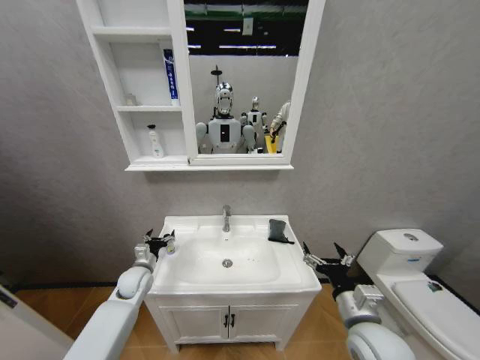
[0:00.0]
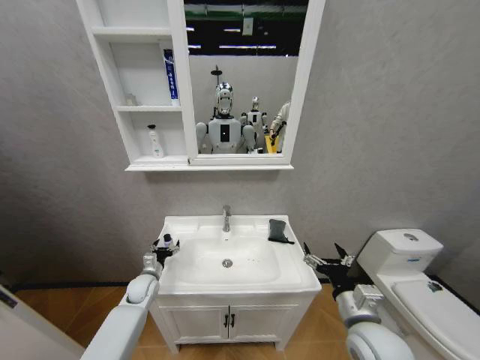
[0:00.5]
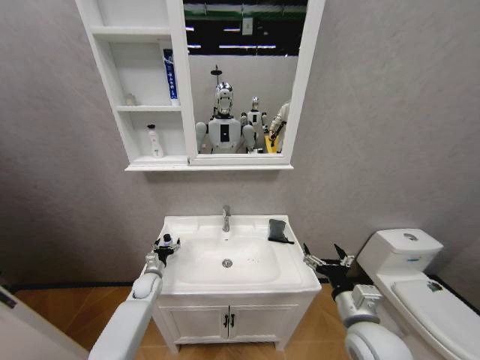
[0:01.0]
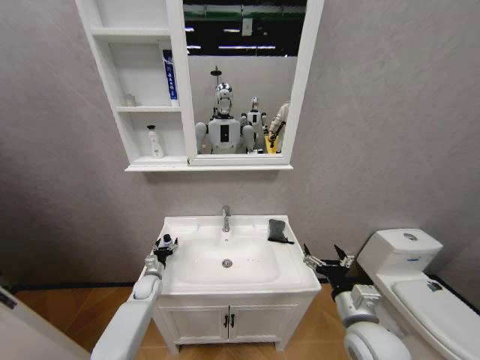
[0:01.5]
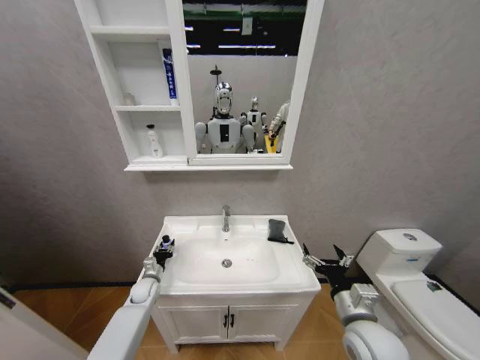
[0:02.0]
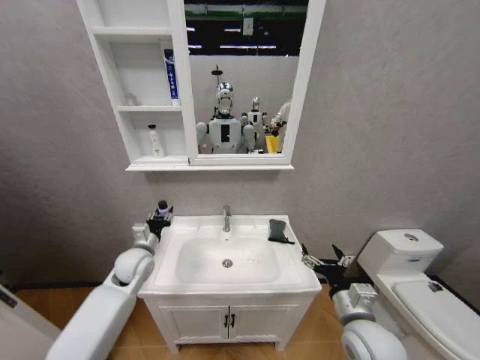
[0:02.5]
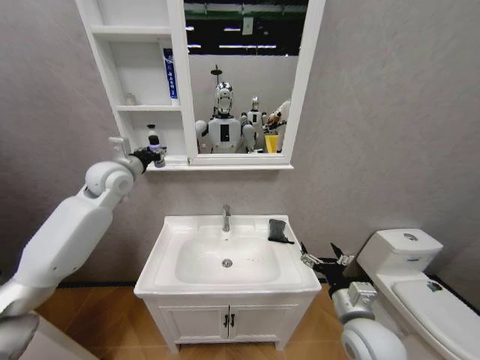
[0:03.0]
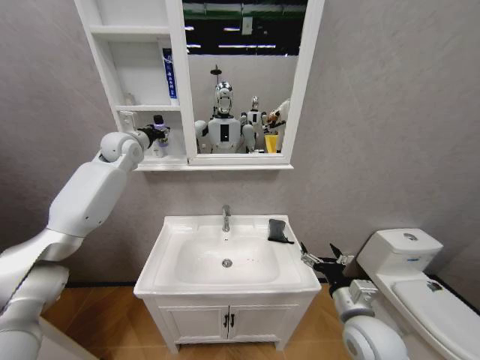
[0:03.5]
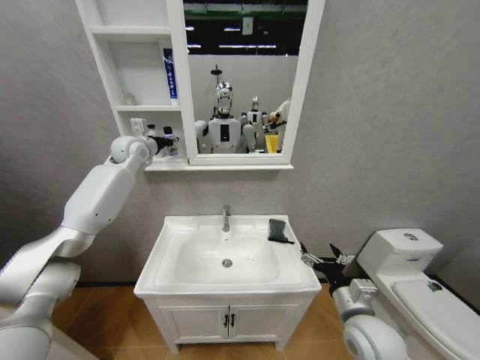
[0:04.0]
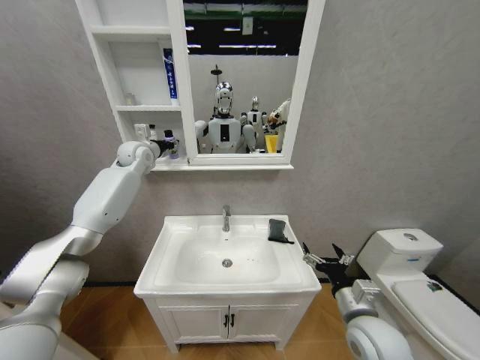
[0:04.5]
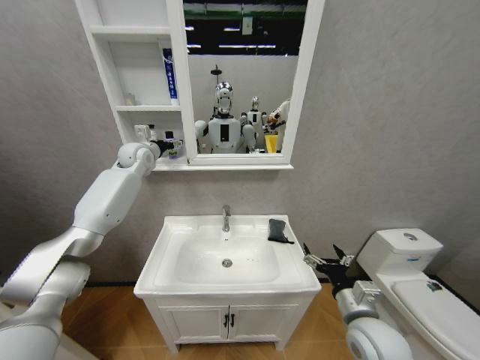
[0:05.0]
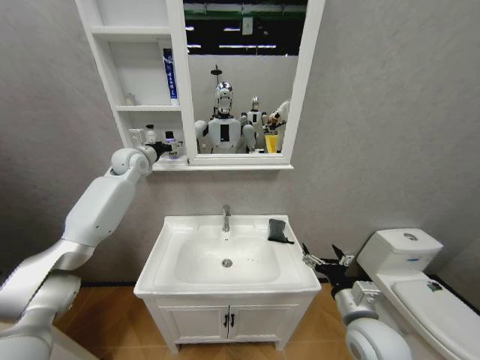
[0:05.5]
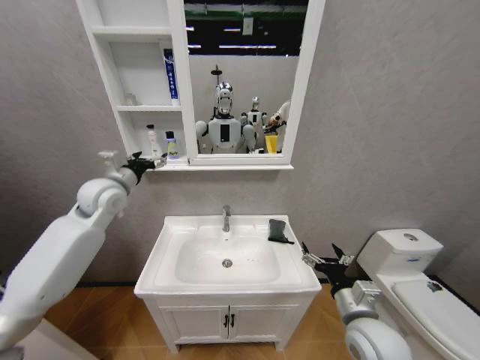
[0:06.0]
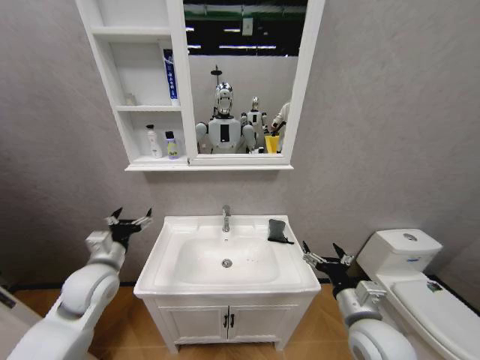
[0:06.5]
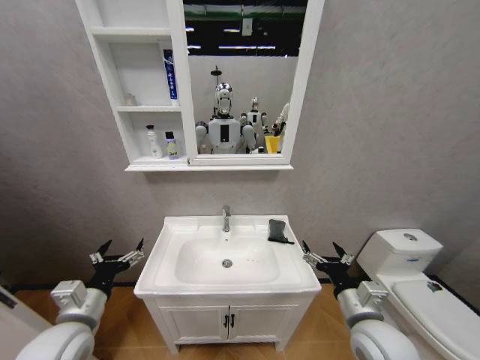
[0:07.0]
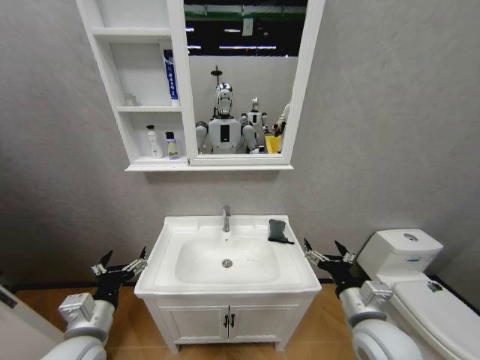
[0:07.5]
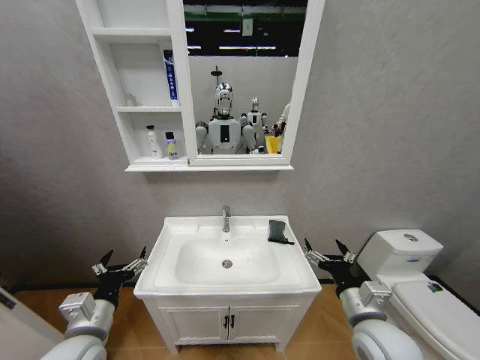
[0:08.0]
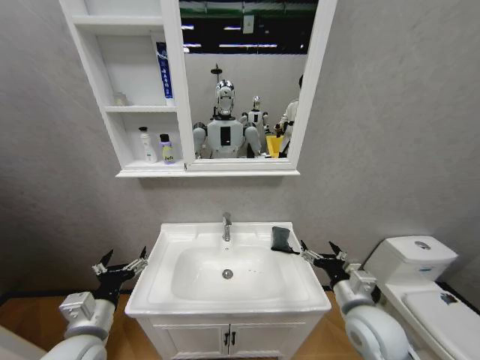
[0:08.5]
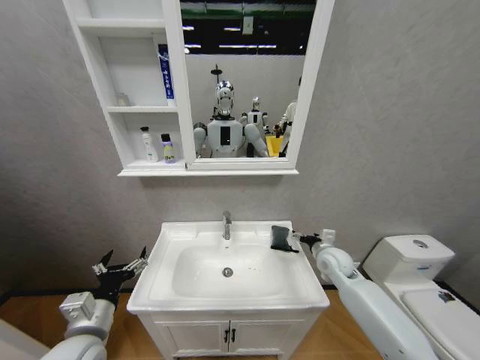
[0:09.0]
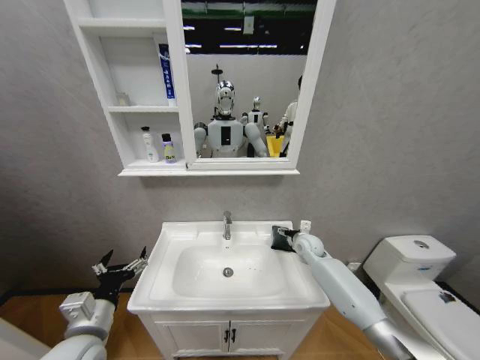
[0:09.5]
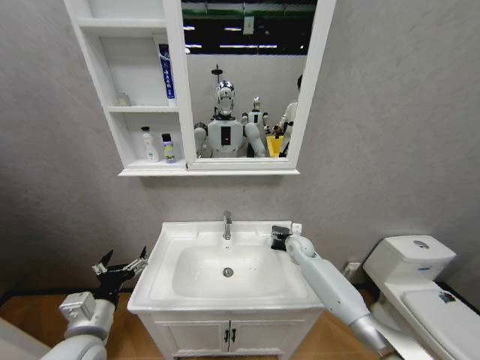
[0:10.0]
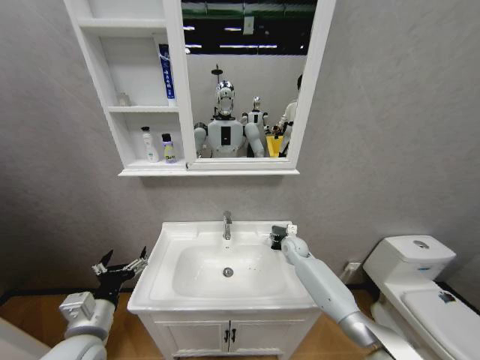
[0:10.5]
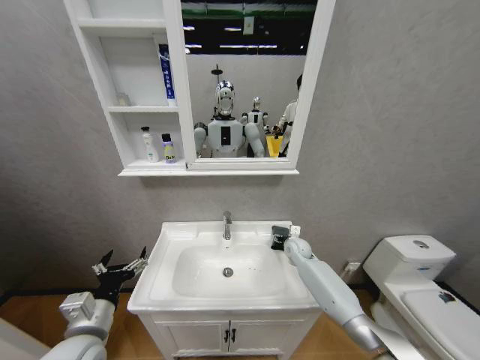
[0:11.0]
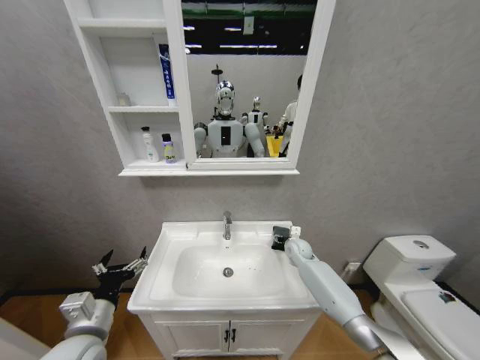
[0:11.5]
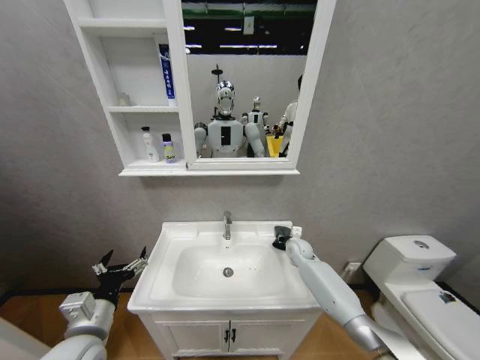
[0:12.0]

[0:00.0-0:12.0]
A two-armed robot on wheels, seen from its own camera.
Task of the whole recording: Move facial cleanser and shampoo from washbasin to cabinet, then wipe washbasin with towel.
0.0 to 2.0 s: The left gripper travels downward by roughly 10 cm, and closes.
2.0 to 4.0 s: The left gripper heads upward, covering about 50 cm.
4.0 to 6.0 s: The left gripper travels backward and downward by about 15 cm, and opens.
6.0 to 8.0 s: The left gripper heads backward and downward, covering about 35 cm.
8.0 to 10.0 s: The right gripper travels forward by roughly 30 cm.
10.0 to 12.0 s: The right gripper closes its fingers.

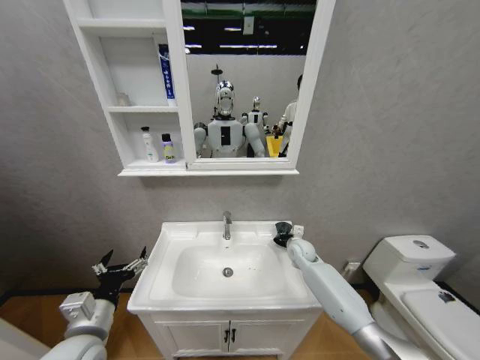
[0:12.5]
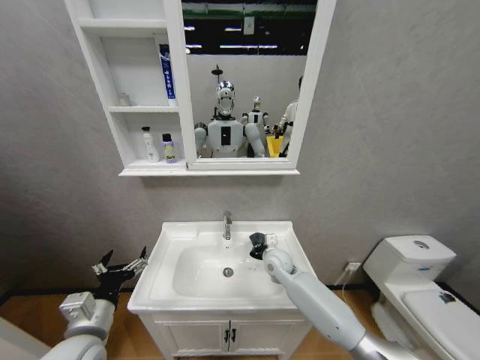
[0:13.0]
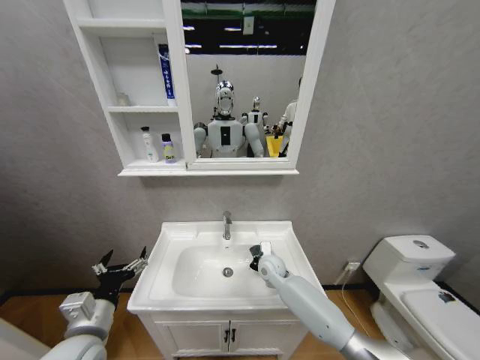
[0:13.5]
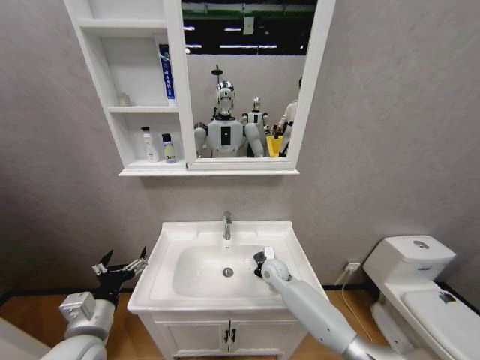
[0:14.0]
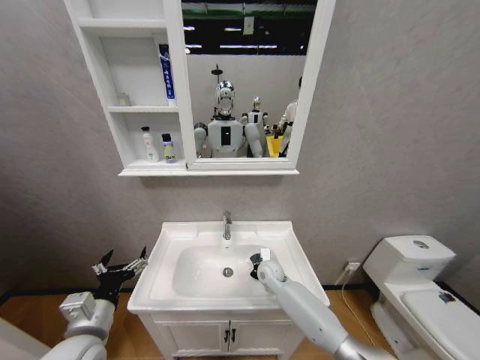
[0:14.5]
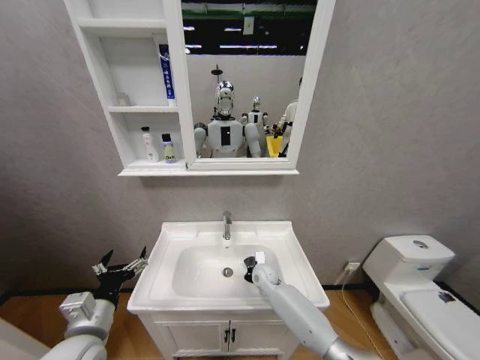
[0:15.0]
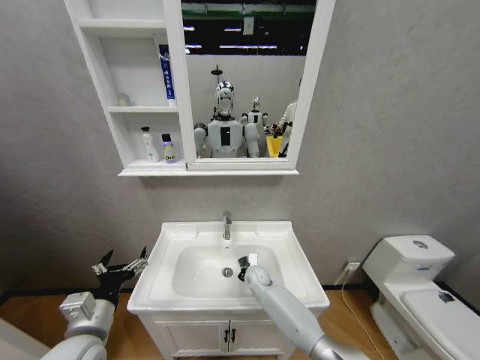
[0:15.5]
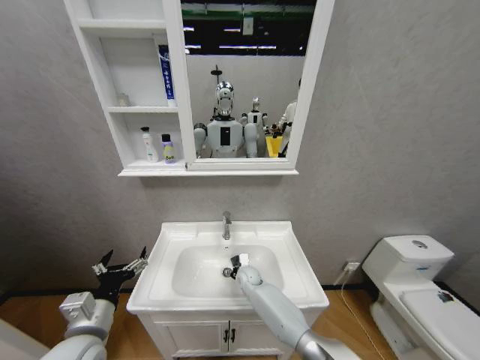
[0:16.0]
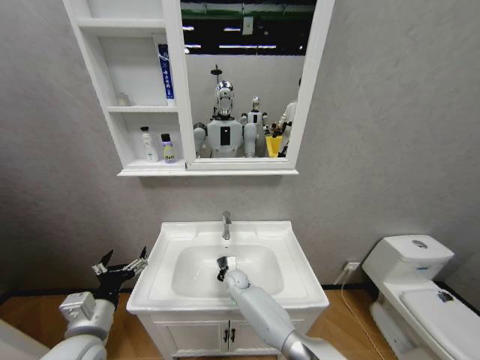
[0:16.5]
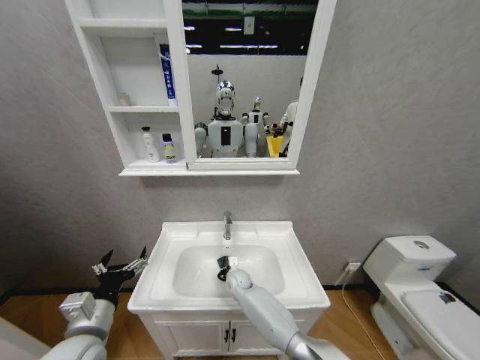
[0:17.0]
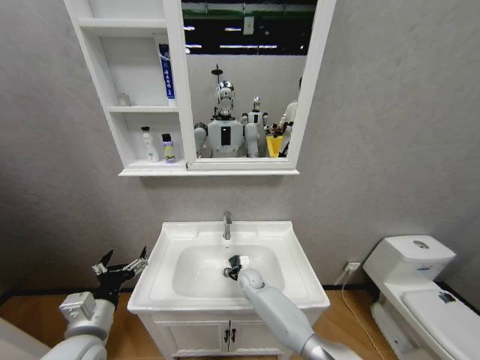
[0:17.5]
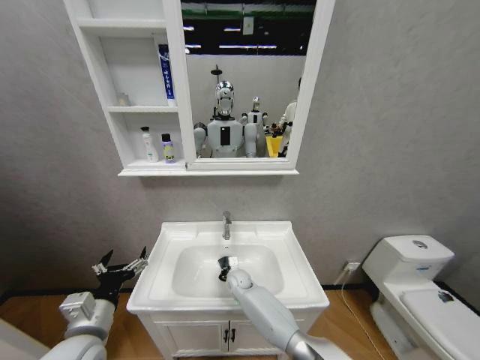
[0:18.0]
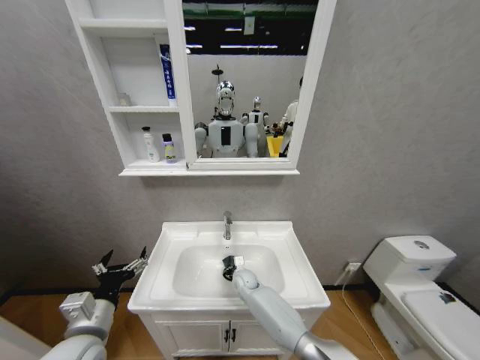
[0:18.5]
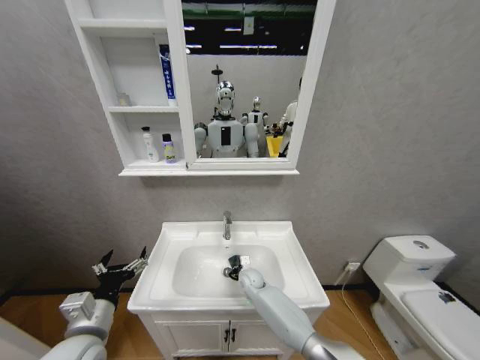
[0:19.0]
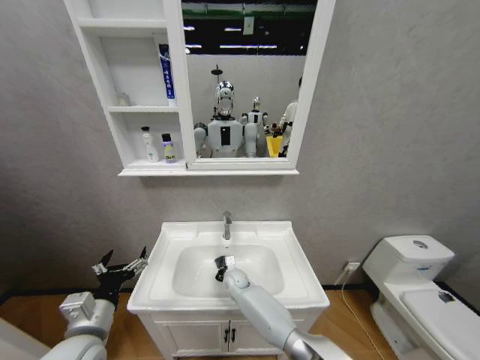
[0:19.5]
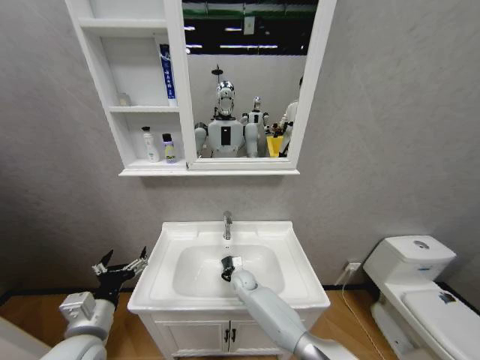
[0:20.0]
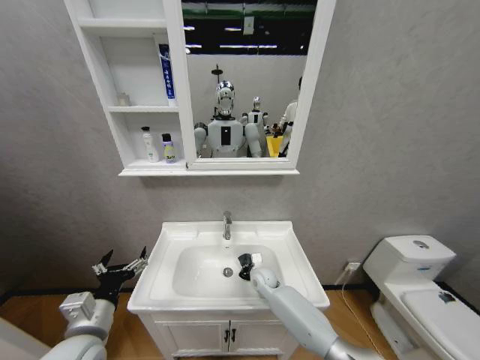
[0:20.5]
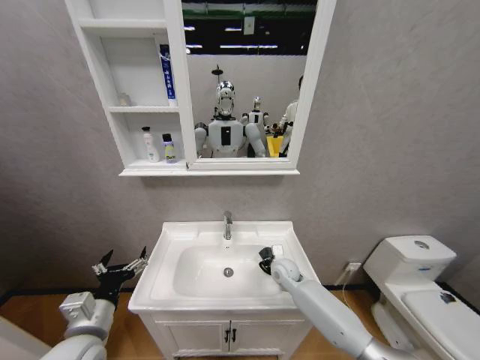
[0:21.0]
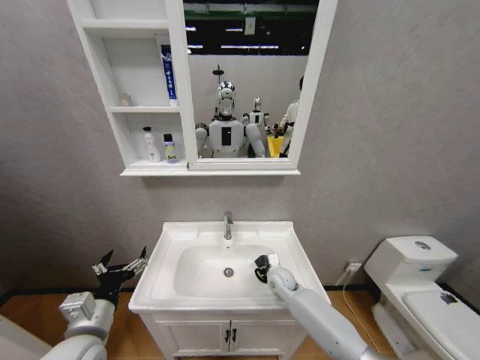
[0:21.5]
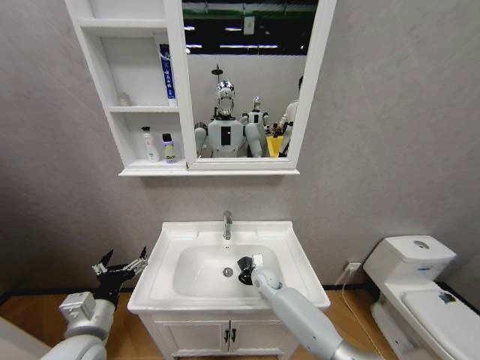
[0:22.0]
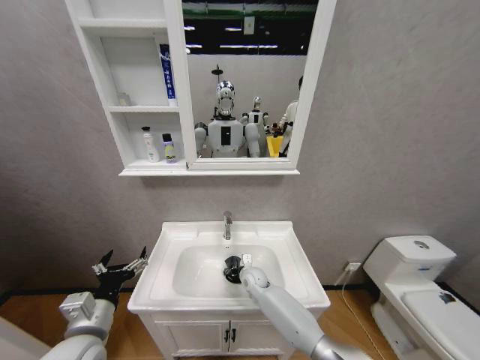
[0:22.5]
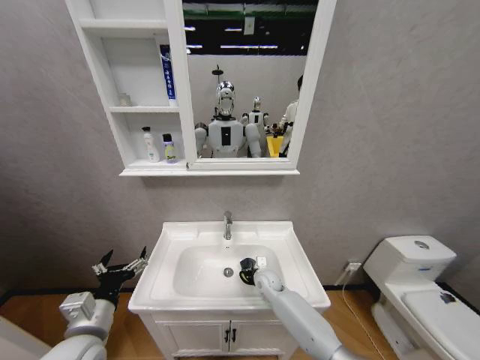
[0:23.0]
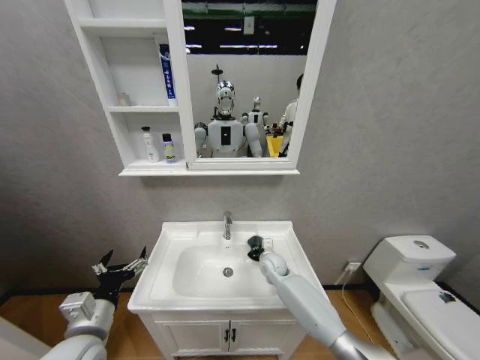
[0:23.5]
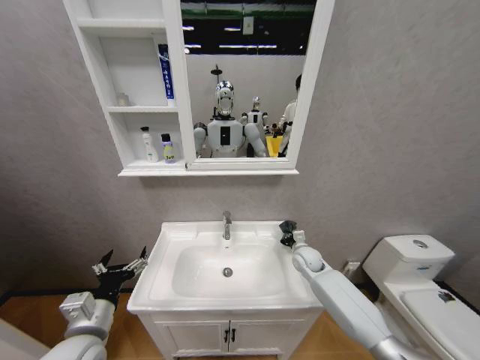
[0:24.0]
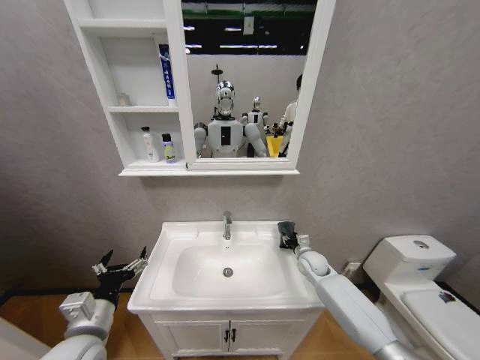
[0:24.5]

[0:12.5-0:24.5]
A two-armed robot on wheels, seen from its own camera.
Task of the whole recording: Move facial cleanser and shampoo from washbasin to cabinet, then wipe washbasin with towel.
12.5 to 14.5 s: The right gripper heads to the left, downward and backward, covering approximately 15 cm.
14.5 to 16.5 s: The right gripper shifts about 15 cm to the left and downward.
16.5 to 18.5 s: The grippers stay close to where they were, moving slightly.
18.5 to 20.5 s: The right gripper goes approximately 5 cm to the right.
22.5 to 24.5 s: The right gripper goes approximately 20 cm to the right, and opens its fingers.

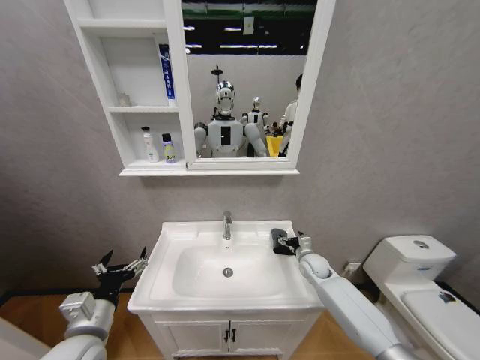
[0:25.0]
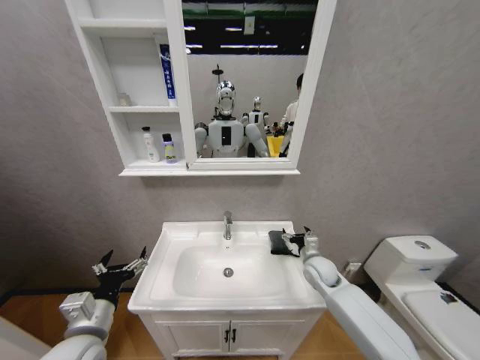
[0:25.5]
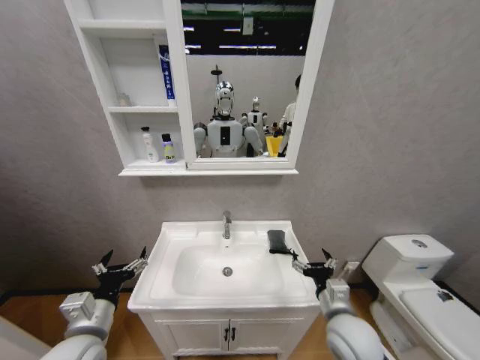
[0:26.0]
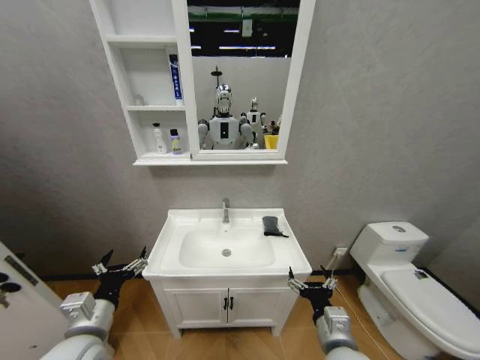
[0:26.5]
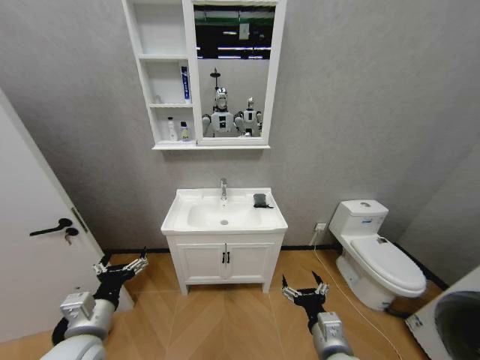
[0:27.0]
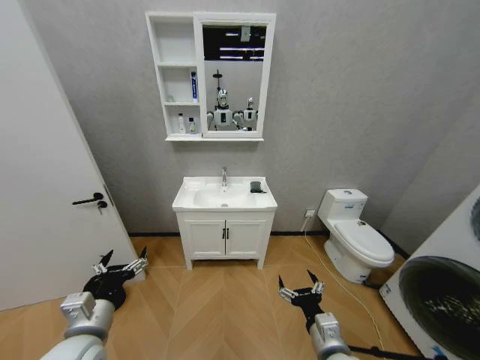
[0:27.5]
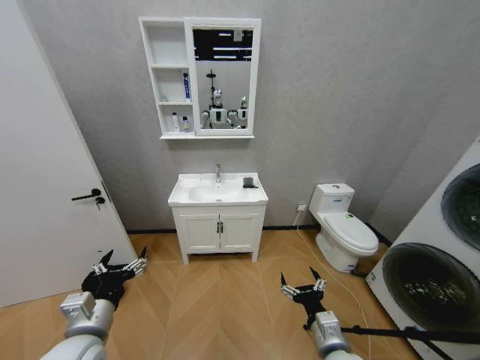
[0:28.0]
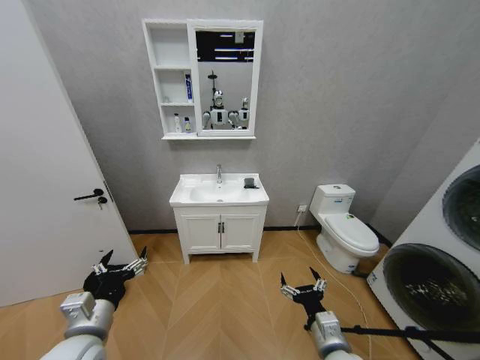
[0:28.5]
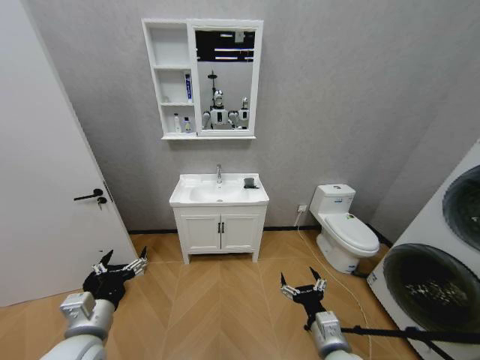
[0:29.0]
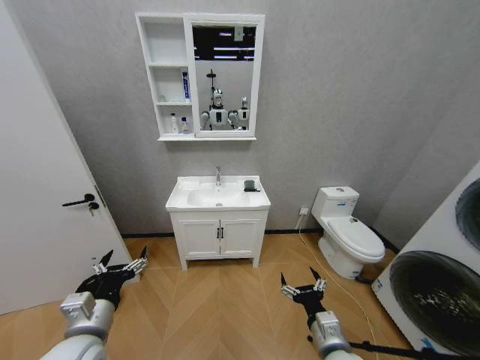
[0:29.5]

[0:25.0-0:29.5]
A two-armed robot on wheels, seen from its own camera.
Task of the whole recording: Move facial cleanser and shampoo from washbasin to cabinet, then wipe washbasin with towel.
25.0 to 27.0 s: The right gripper travels backward by approximately 30 cm.
